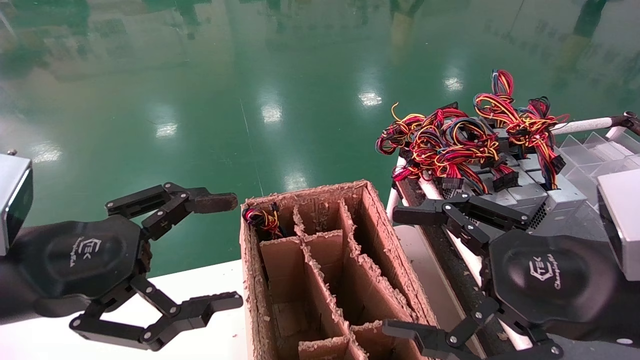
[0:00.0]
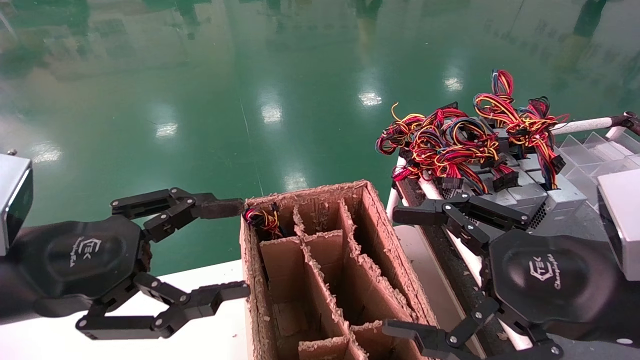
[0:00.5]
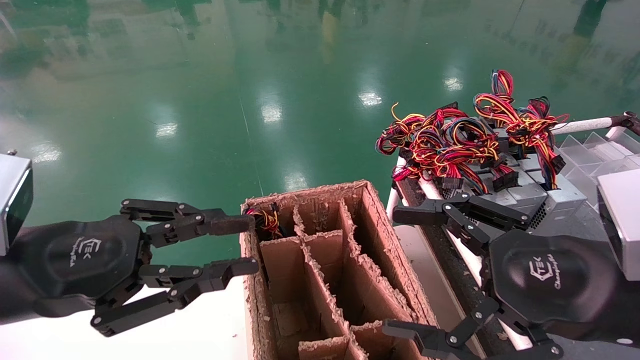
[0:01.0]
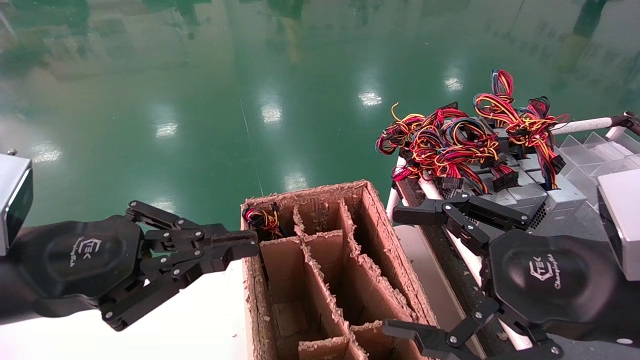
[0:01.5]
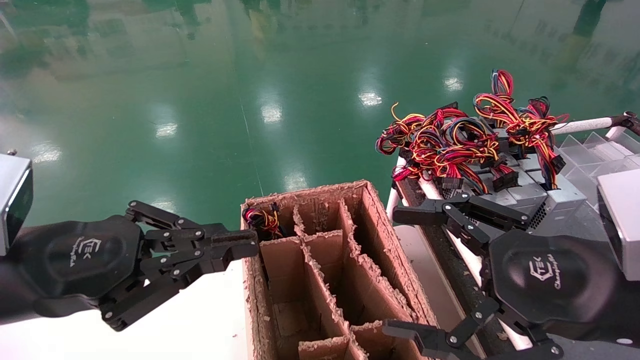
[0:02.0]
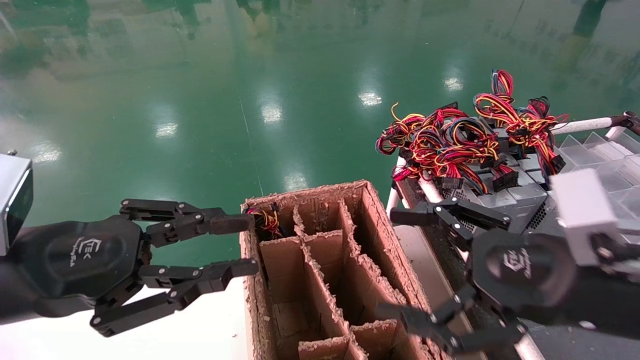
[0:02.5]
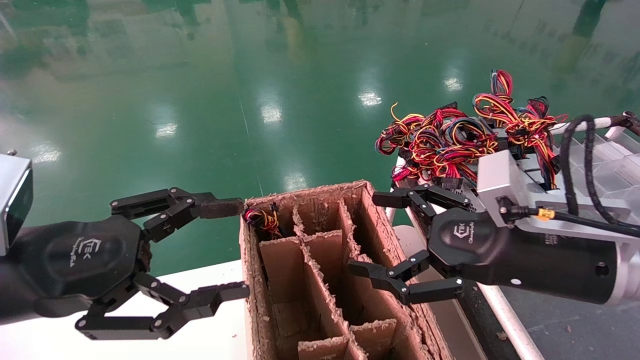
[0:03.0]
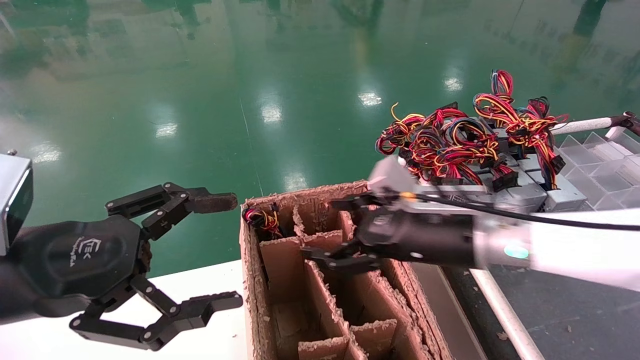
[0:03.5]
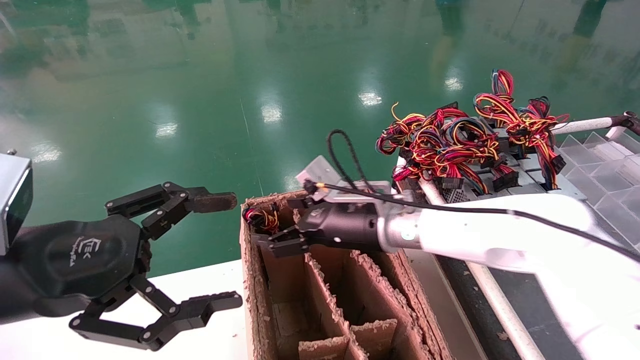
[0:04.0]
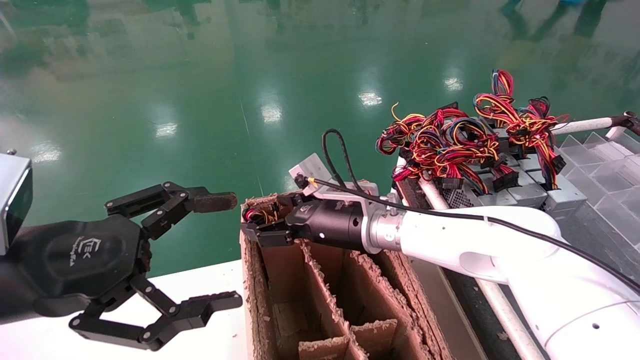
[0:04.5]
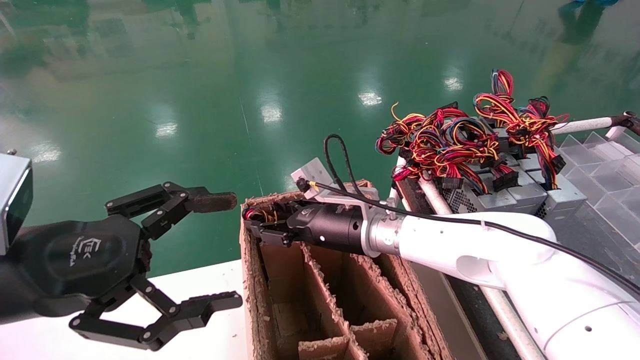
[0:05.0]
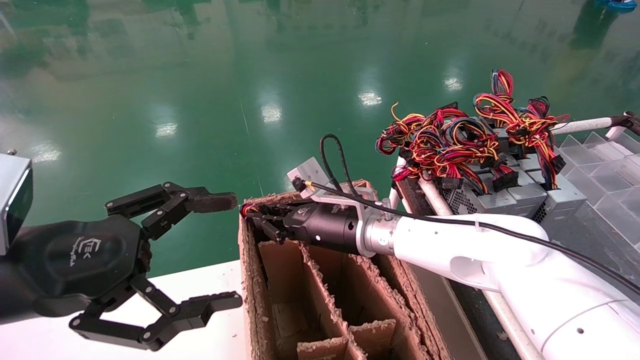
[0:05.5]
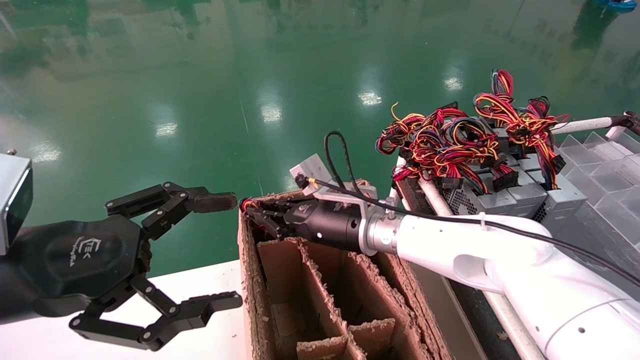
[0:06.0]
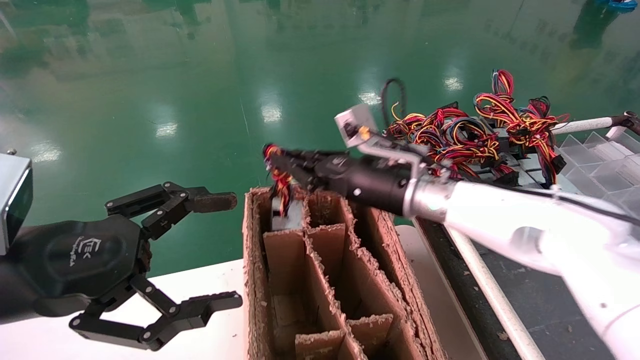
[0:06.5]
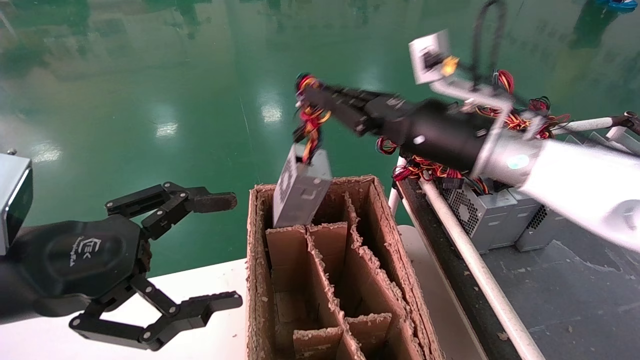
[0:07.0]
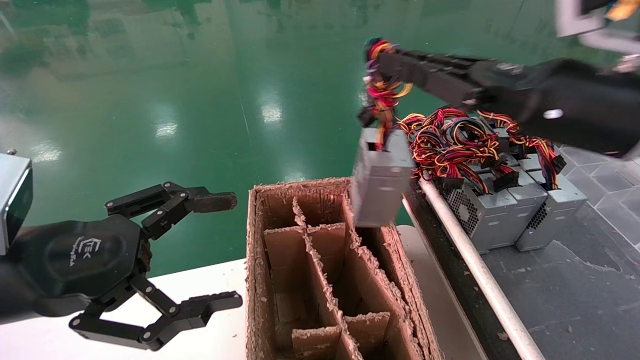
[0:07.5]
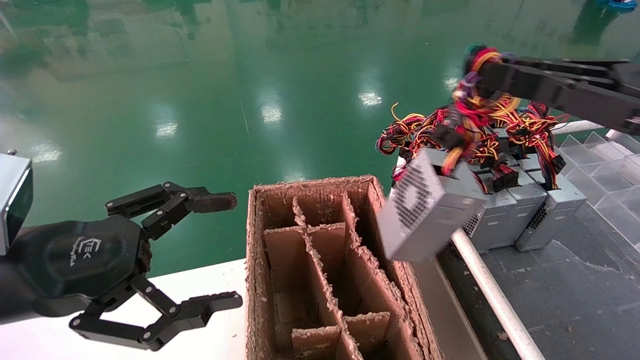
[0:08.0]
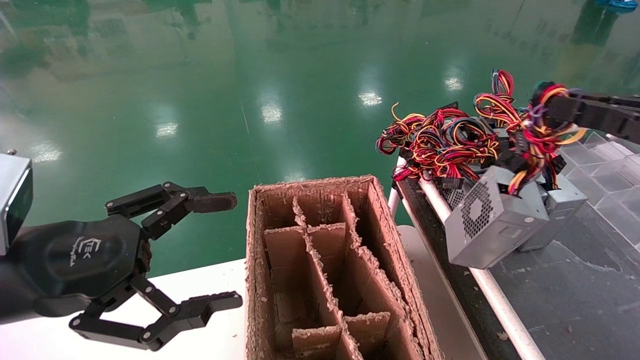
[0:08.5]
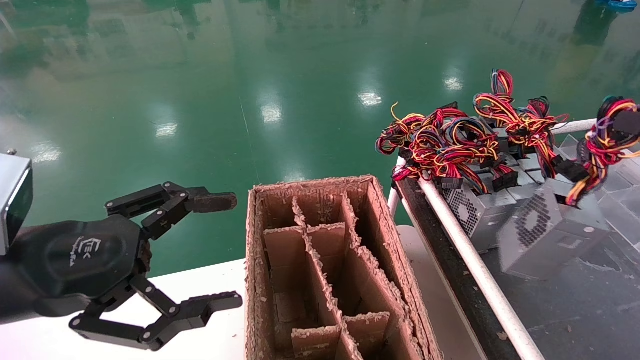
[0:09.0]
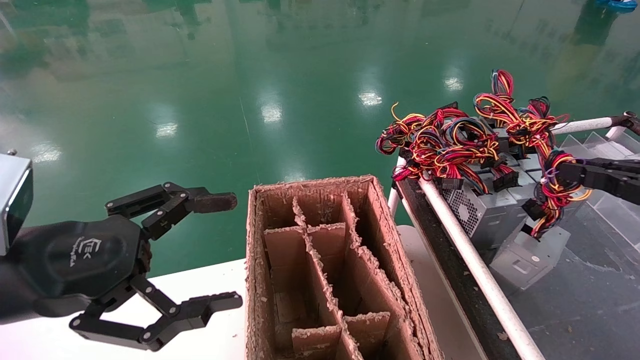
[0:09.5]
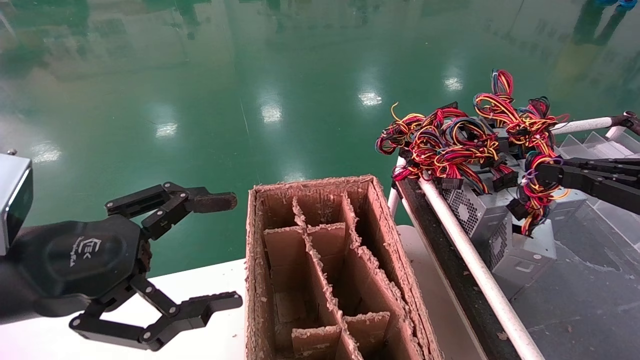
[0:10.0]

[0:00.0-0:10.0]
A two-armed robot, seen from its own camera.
Step, 0:02.0 to 0:05.5: Grab and lift the power supply from the large box.
0:00.0 to 0:02.0: The left gripper closes its fingers.
0:02.0 to 0:04.0: The right gripper is displaced forward and to the left by approximately 30 cm; the left gripper opens up.
0:04.0 to 0:06.0: The right gripper closes its fingers.
0:06.0 to 0:08.0: The right gripper is displaced to the right, backward and upward by about 40 cm.
0:08.0 to 0:10.0: The right gripper is displaced to the right and downward by some 10 cm.

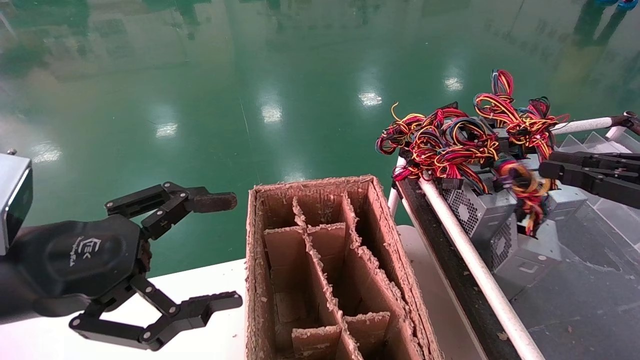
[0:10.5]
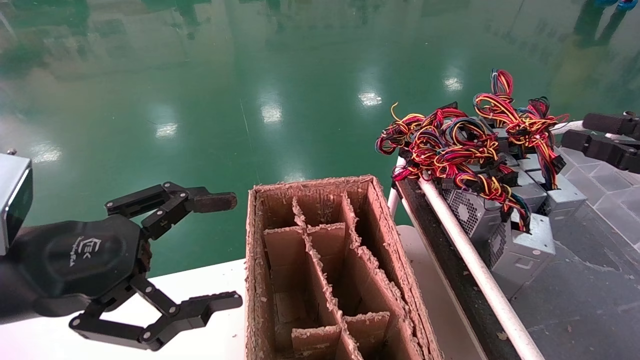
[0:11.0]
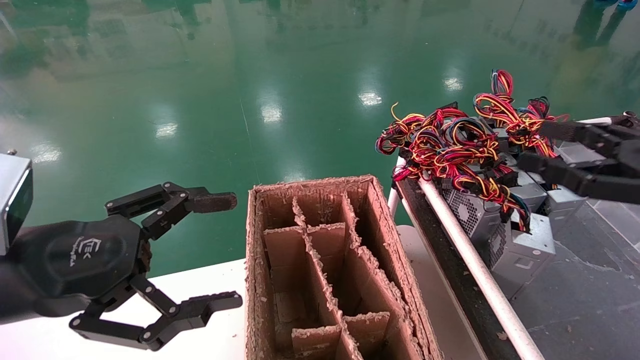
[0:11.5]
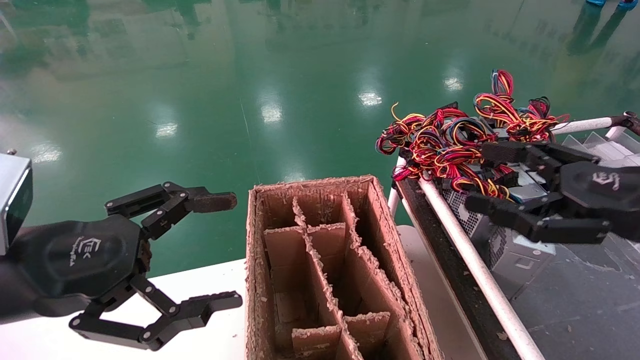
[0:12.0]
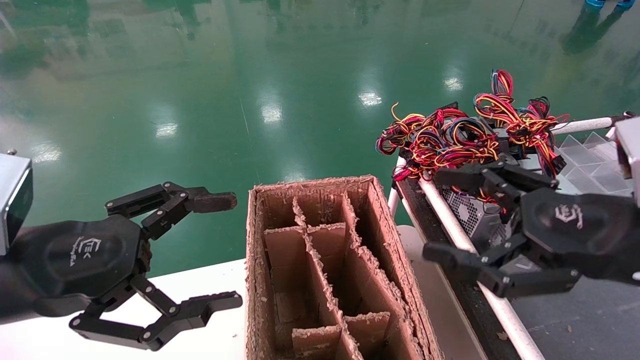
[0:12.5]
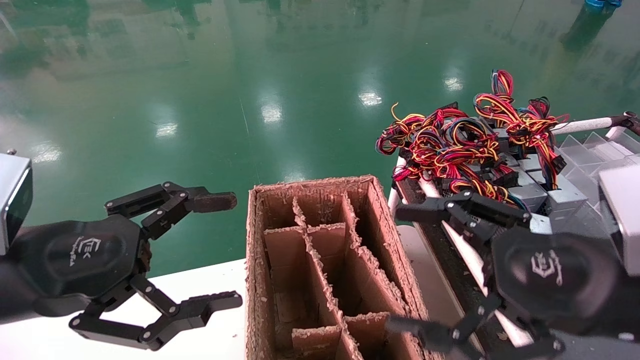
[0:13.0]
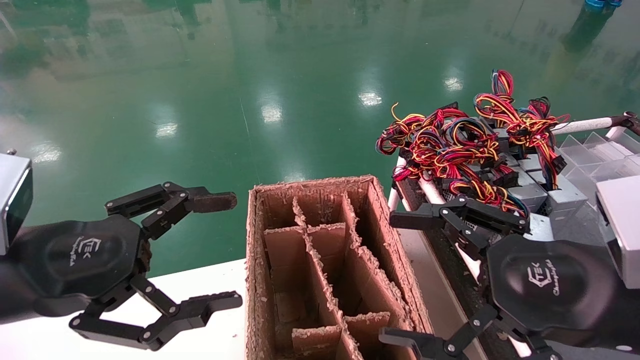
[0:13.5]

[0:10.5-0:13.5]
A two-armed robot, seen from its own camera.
0:10.5 to 0:12.0: The right gripper moves to the left, approximately 10 cm, and opens up.
0:12.0 to 0:13.5: The right gripper goes approximately 10 cm to the left and backward.
